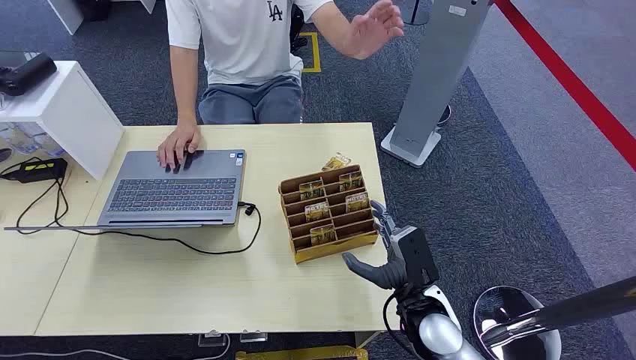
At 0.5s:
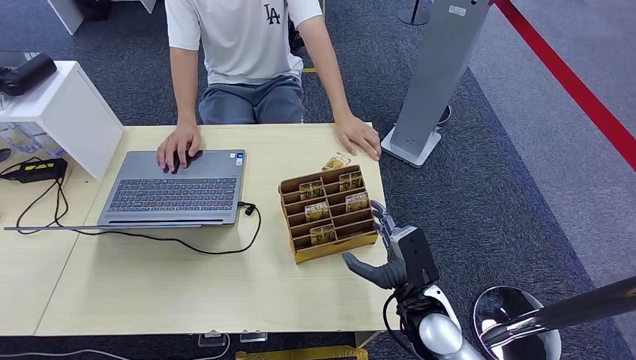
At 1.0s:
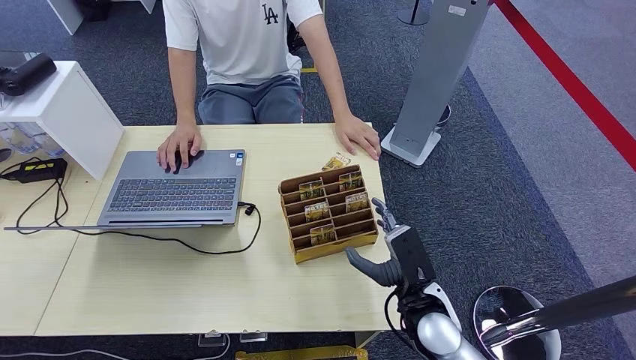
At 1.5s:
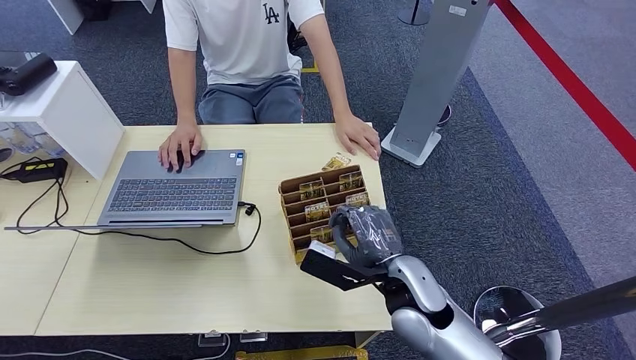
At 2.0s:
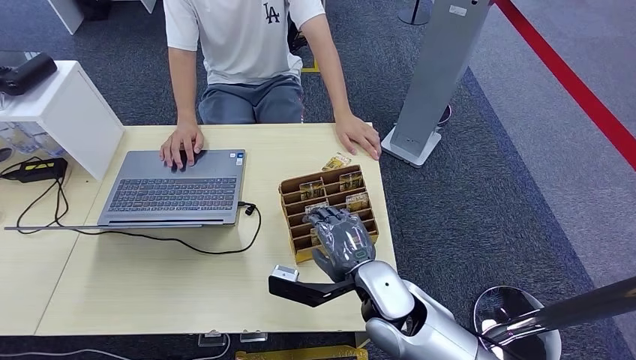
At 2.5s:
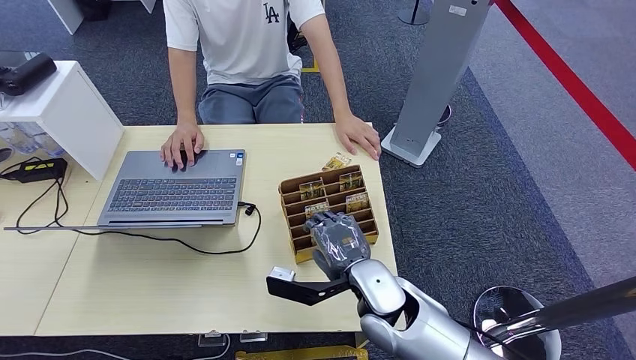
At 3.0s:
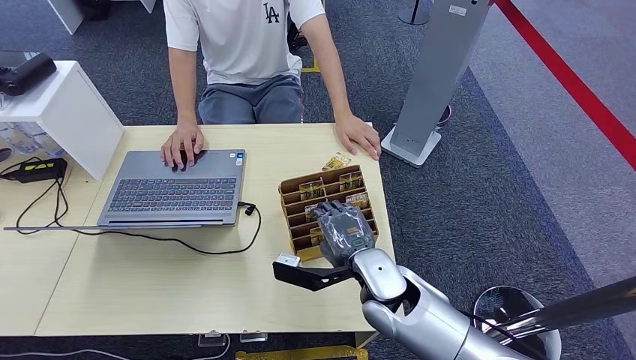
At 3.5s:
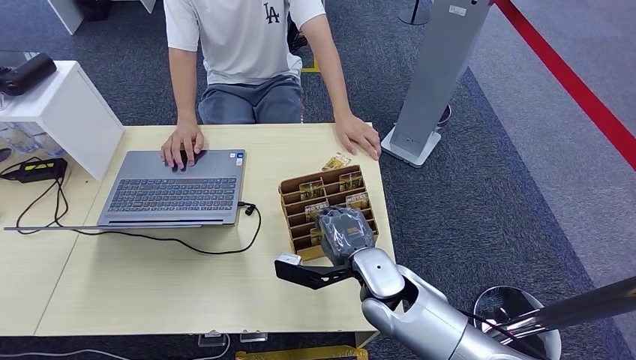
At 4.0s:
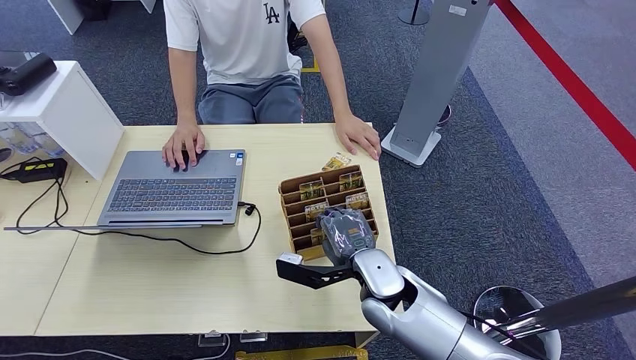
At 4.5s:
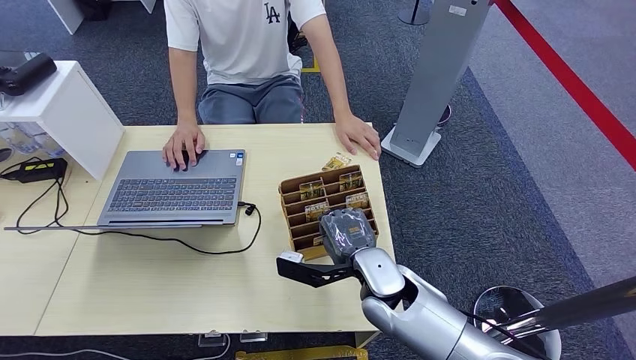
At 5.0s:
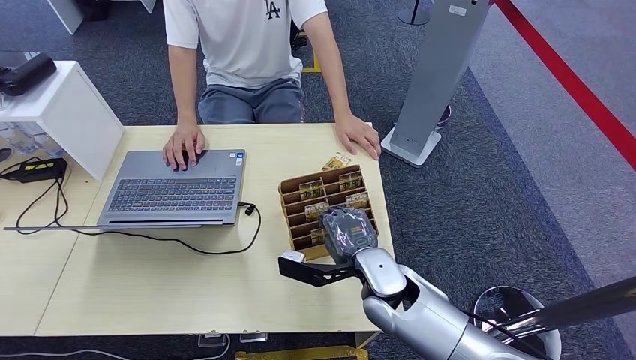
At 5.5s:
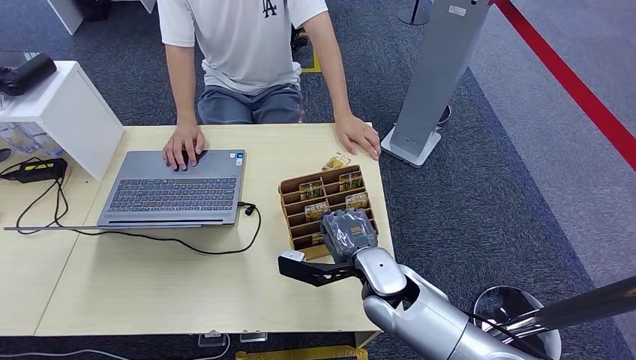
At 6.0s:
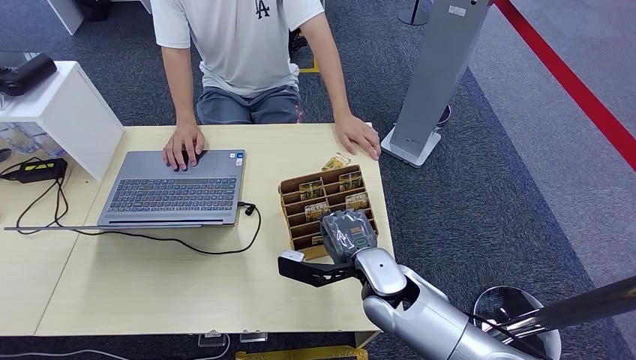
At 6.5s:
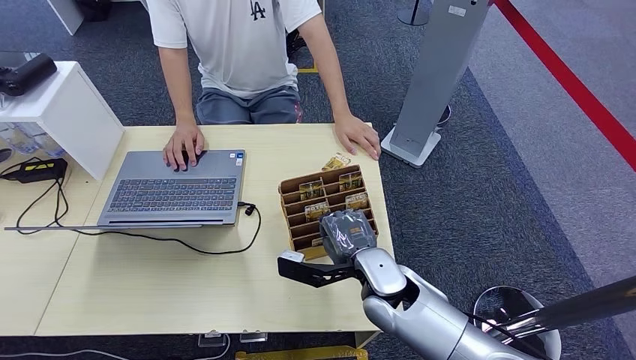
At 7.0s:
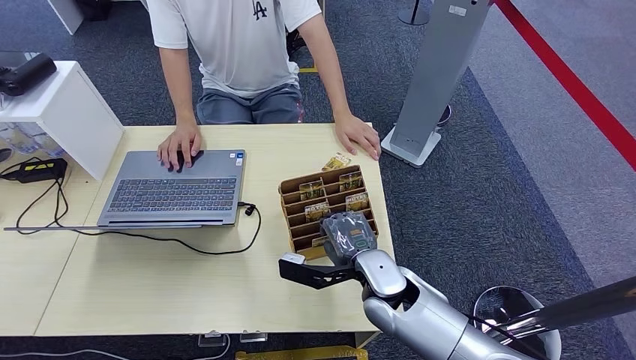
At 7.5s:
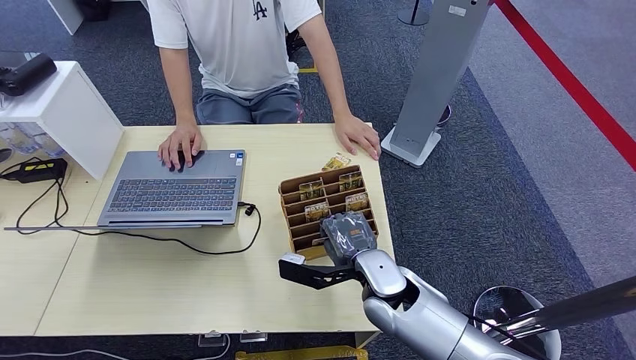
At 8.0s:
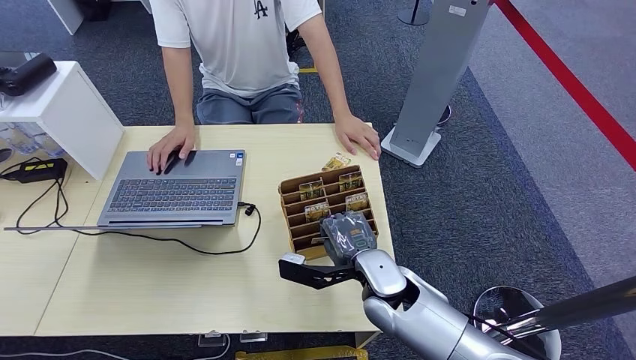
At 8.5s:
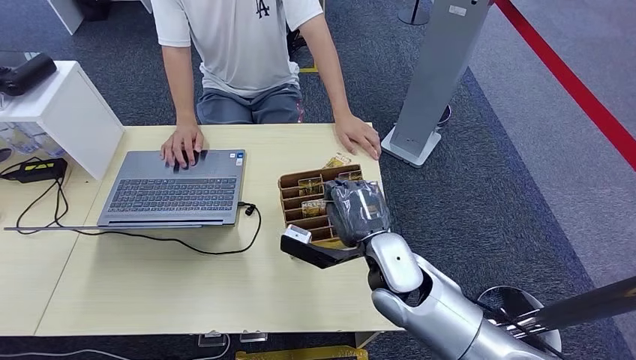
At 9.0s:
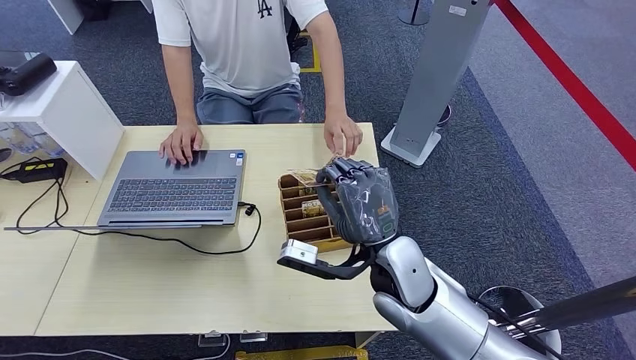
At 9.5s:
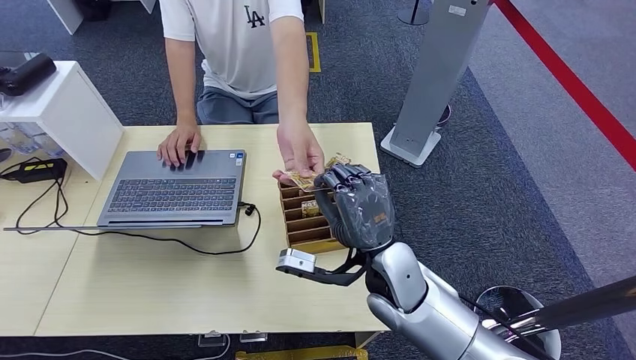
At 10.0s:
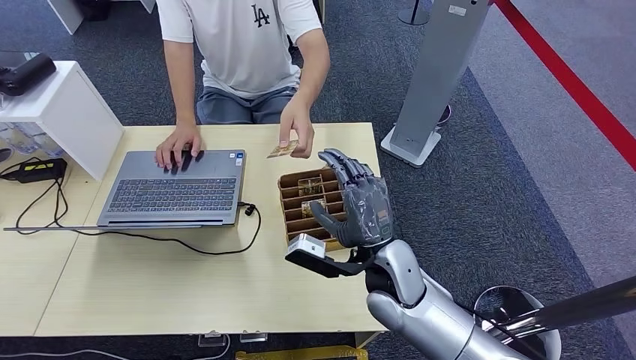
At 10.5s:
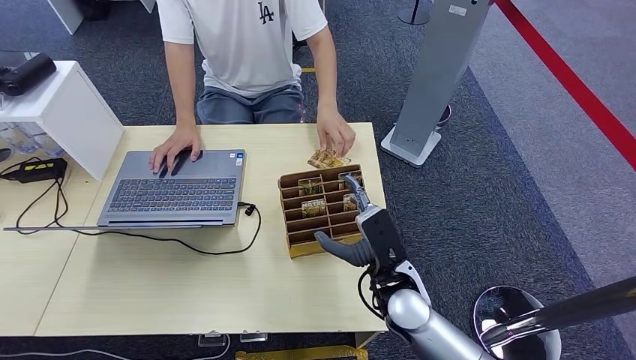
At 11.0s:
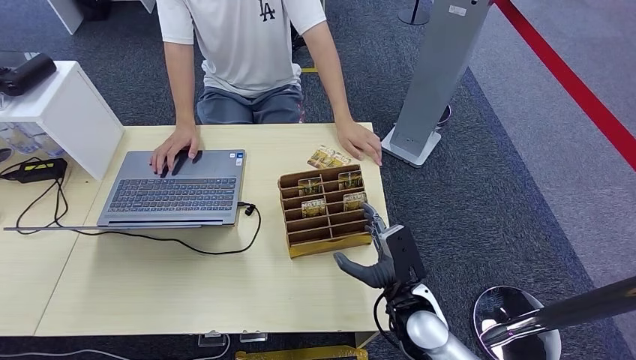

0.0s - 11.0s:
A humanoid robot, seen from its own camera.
Step, 0.0s - 8.0s: Pick up the room card from the card holder.
Step, 9.5s - 11.0s: Hand the room card to the target.
2.0s - 3.5s: The hands move only a little.
3.5s - 7.5s: The two hands keep their place.
7.5s - 9.0s: The right hand is displaced upward by roughly 5 cm.
9.0s - 11.0s: The right hand heads downward, to the right and backward, covering about 15 cm.
